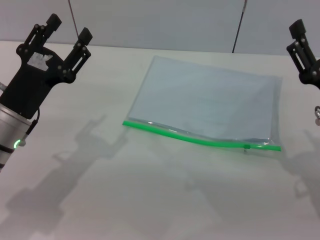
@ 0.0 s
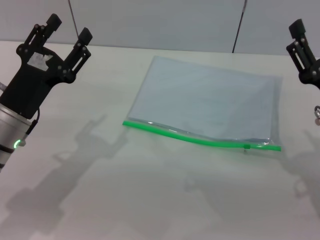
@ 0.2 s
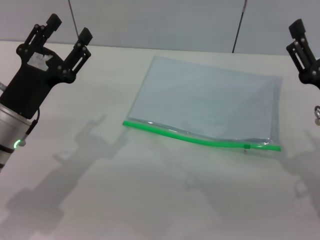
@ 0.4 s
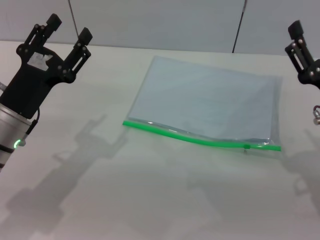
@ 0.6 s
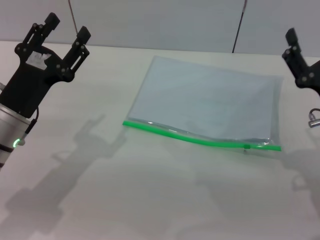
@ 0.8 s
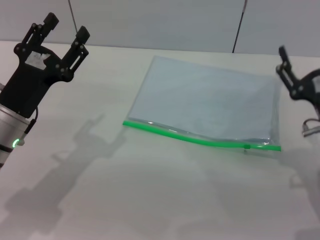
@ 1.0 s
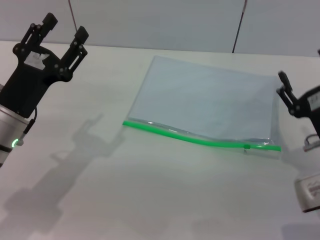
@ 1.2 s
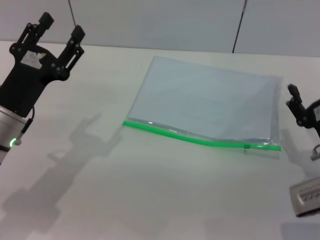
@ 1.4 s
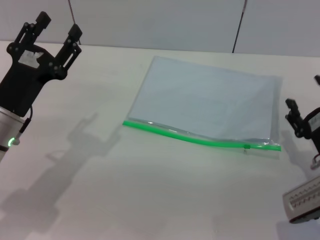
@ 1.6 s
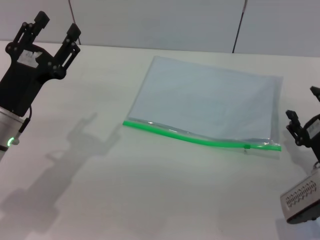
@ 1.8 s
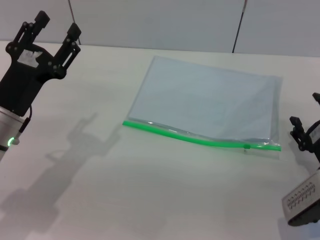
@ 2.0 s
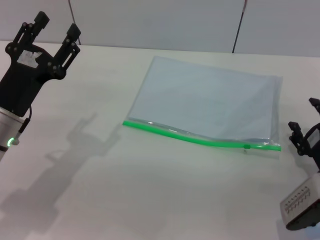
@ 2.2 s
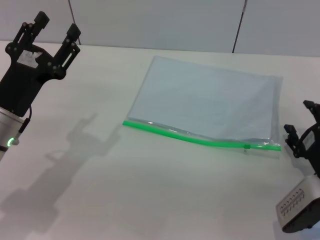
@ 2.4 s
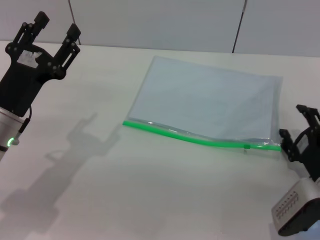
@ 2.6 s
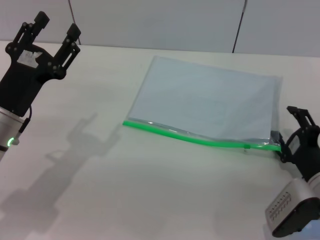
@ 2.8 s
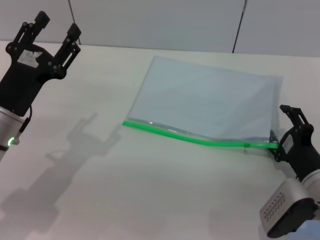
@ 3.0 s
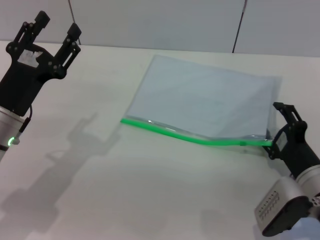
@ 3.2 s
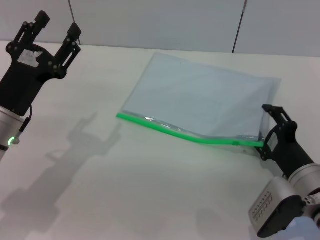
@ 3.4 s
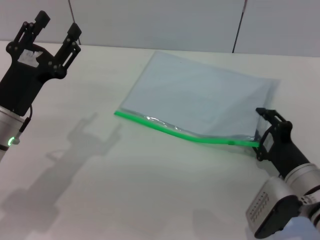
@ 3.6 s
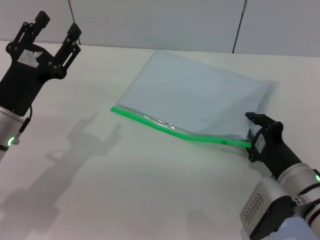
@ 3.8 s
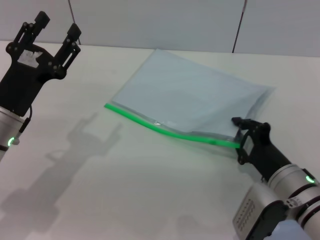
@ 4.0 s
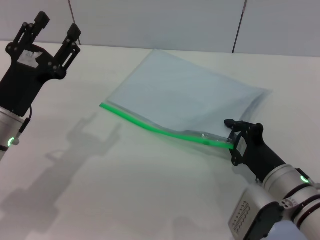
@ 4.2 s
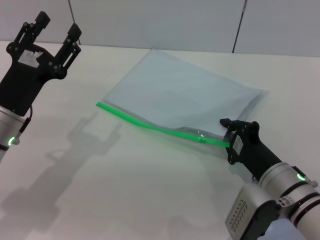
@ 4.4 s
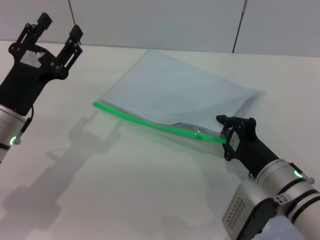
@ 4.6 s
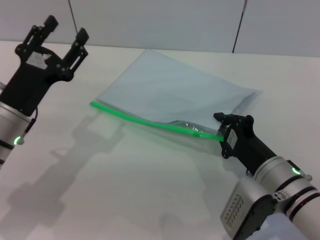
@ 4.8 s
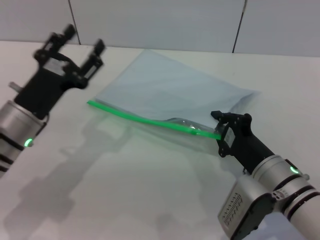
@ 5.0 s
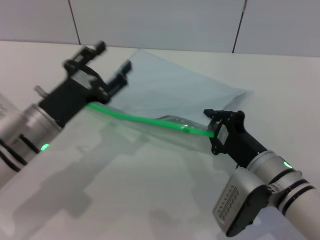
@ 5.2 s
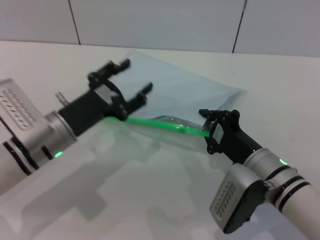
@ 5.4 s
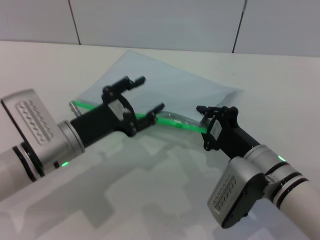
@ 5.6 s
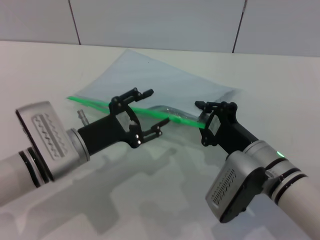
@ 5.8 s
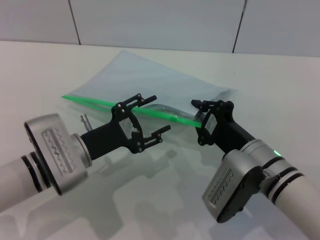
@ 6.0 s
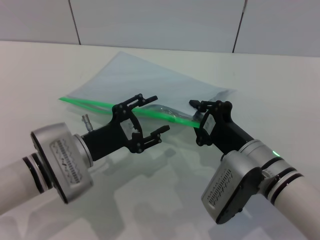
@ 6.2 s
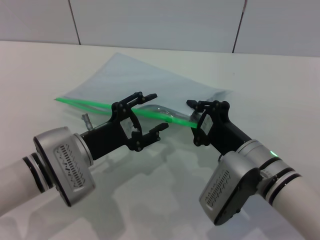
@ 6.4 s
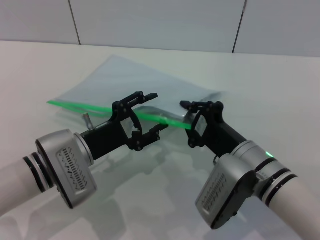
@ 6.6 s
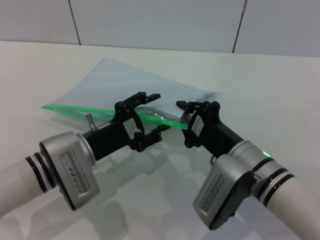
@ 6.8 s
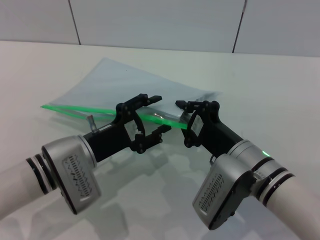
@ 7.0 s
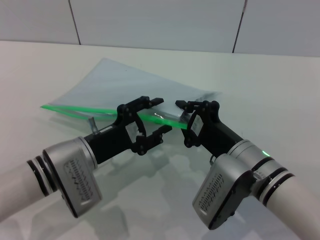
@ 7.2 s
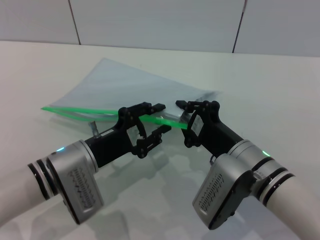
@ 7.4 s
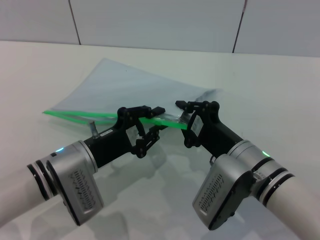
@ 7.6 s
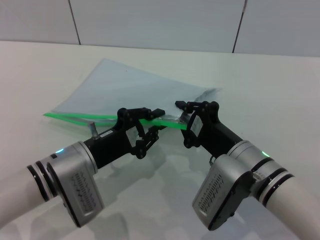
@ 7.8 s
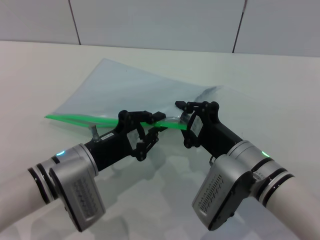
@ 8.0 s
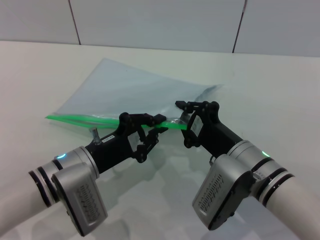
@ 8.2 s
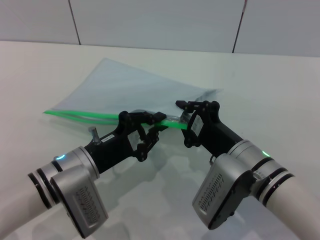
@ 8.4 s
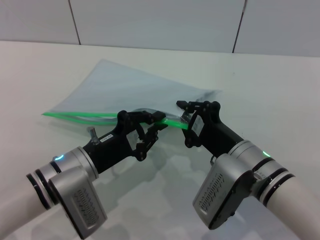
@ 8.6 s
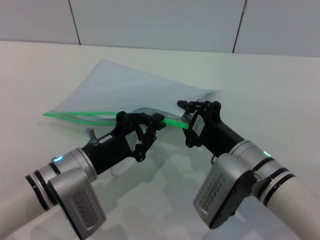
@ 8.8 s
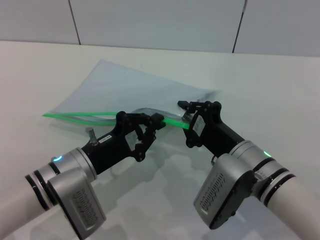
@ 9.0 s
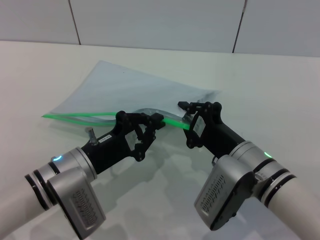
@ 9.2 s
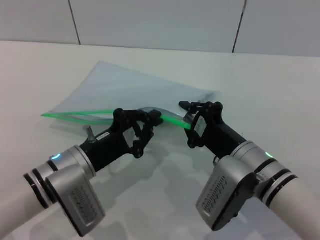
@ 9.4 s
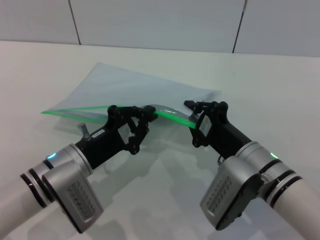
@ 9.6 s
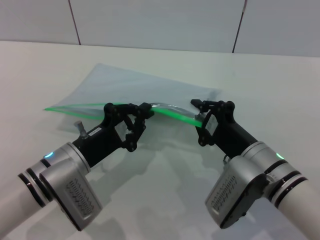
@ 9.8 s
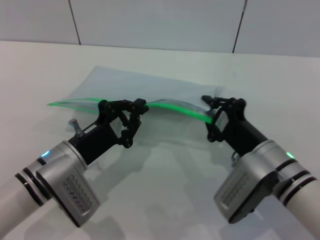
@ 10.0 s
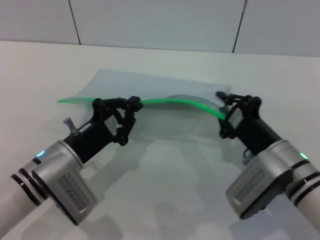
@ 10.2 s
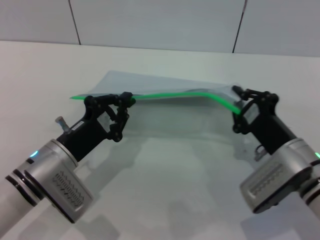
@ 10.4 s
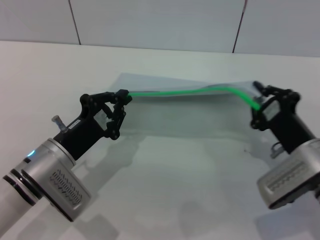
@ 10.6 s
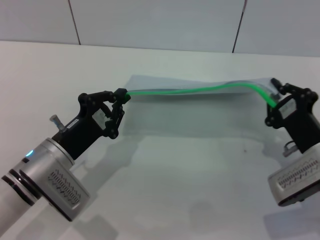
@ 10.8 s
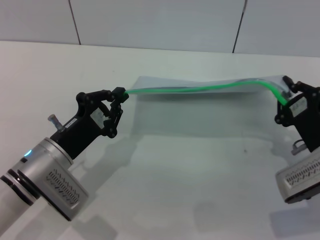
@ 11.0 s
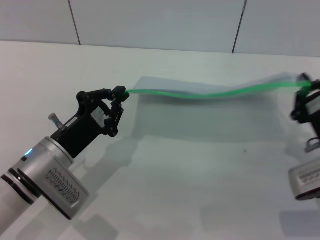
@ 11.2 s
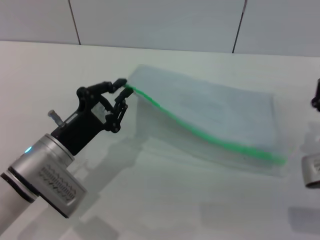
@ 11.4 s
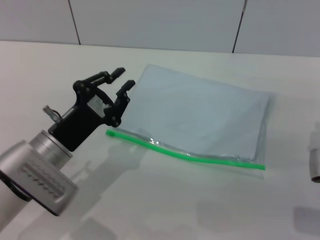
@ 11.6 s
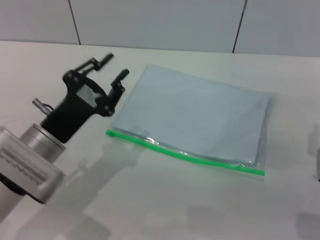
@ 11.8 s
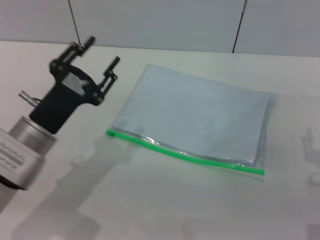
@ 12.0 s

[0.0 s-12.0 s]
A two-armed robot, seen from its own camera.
Step, 0.0 to 6.0 s: Pick up the transparent plastic bag with the right gripper.
Step, 6.2 to 11.2 s: Pulling up the zipper on the transparent plastic bag with the left gripper to close it.
0.0 to 1.6 s: The right gripper shifts approximately 5 cm downward.
1.6 to 3.0 s: The grippers move only a little.
3.0 to 4.4 s: The right gripper is displaced to the left by approximately 5 cm, and closes.
4.4 to 6.0 s: The right gripper shifts by some 5 cm. Meanwhile the left gripper goes approximately 5 cm to the right.
7.6 to 9.0 s: The left gripper closes.
9.0 to 10.4 s: The right gripper shifts some 5 cm to the right.
10.4 to 12.0 s: The left gripper opens its fingers. The right gripper is displaced to the right by about 5 cm, and opens.

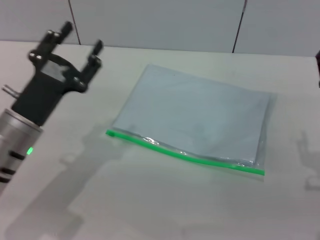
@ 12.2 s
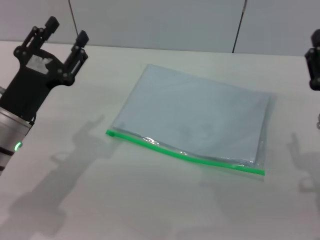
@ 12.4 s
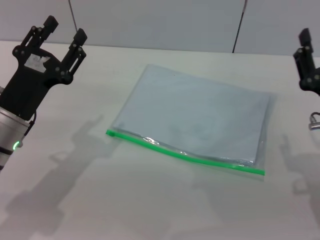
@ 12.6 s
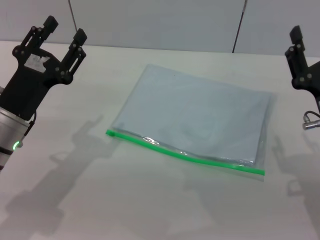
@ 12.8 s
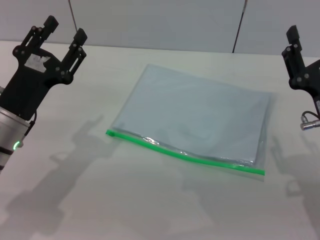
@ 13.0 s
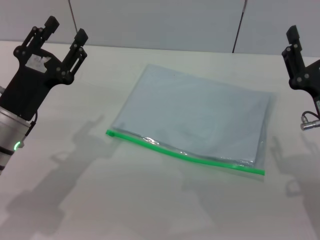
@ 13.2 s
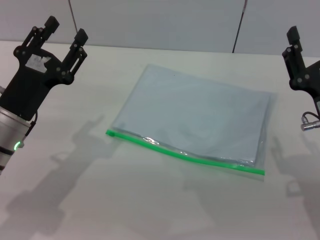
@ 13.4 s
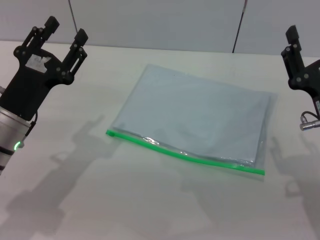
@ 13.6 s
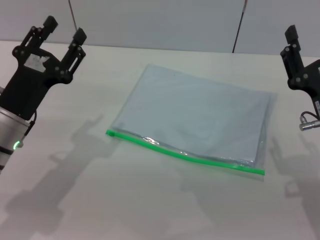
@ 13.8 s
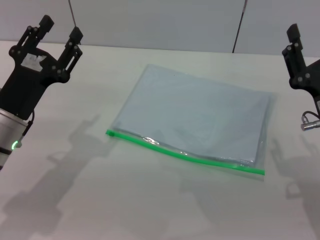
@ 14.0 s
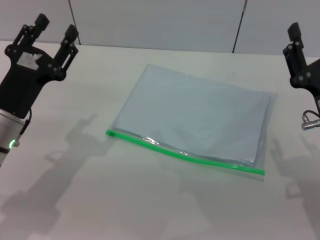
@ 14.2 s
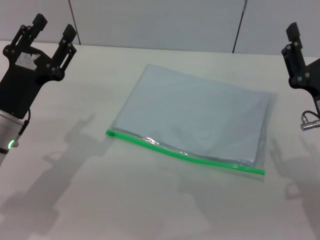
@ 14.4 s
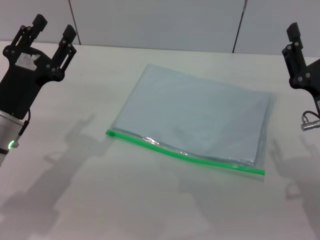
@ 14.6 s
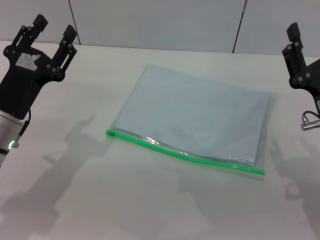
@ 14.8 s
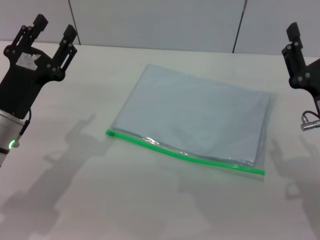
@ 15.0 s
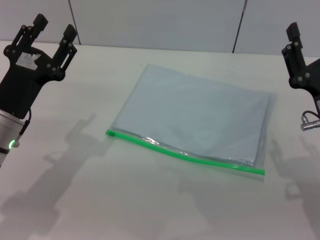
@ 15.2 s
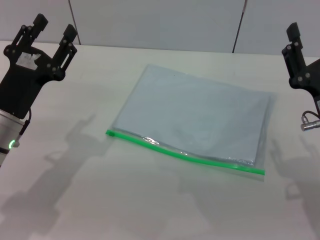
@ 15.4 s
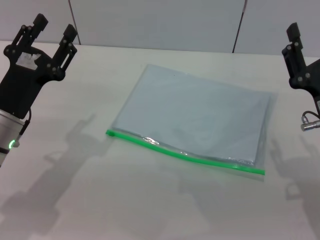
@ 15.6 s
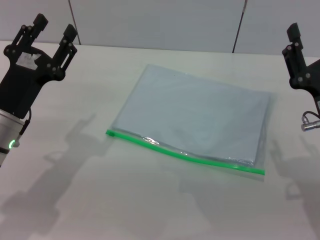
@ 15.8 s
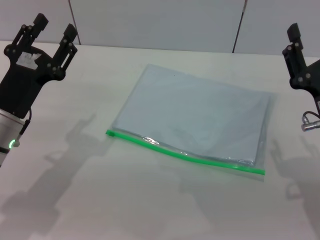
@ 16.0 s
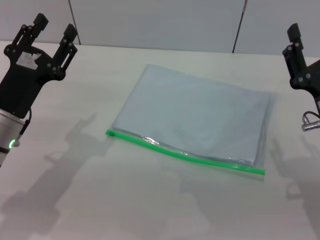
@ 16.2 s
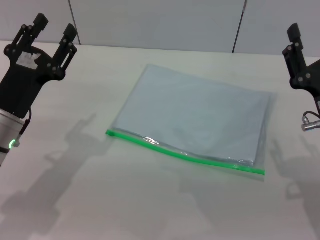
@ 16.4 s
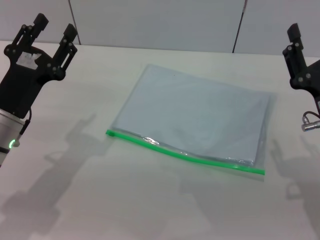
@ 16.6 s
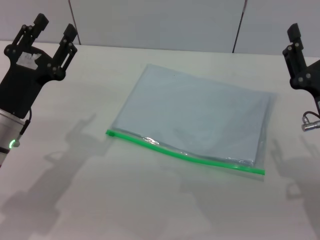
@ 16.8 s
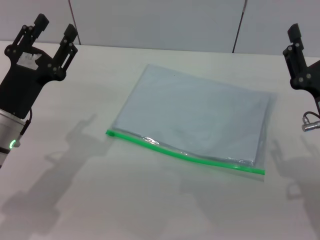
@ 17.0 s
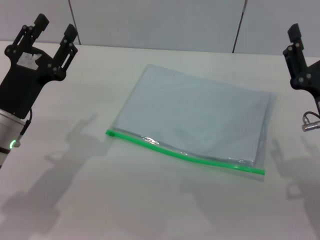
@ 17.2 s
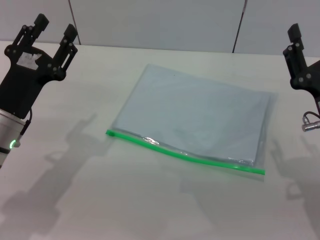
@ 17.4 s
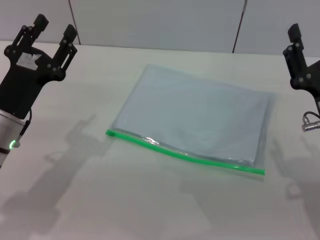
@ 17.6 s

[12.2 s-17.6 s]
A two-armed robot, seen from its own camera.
12.2 to 13.6 s: The grippers make only small movements.
13.6 to 17.6 s: Both grippers stay put.

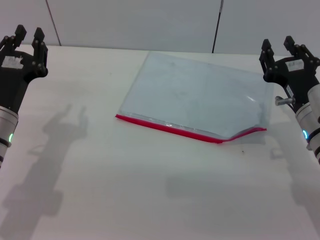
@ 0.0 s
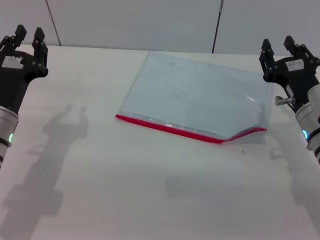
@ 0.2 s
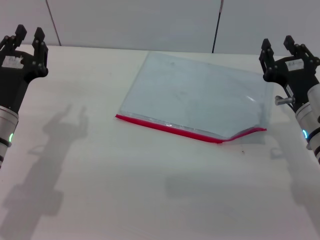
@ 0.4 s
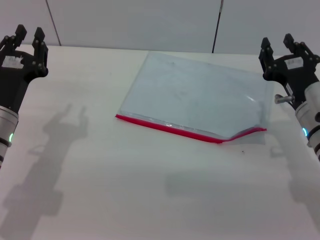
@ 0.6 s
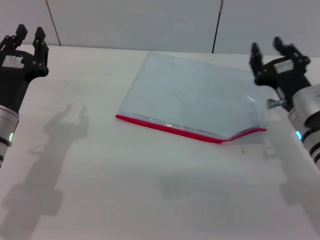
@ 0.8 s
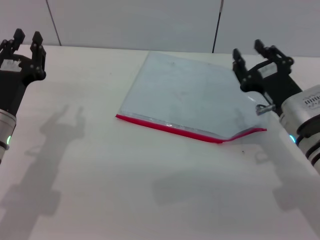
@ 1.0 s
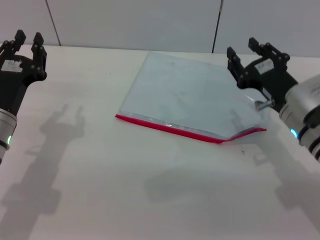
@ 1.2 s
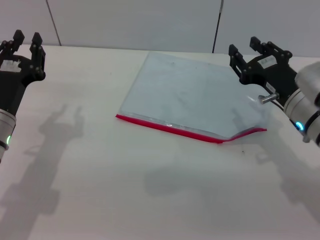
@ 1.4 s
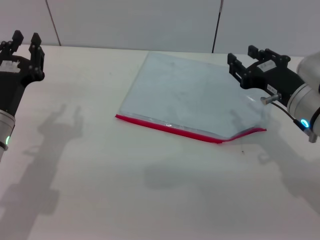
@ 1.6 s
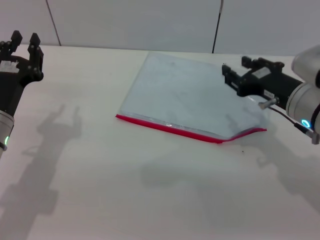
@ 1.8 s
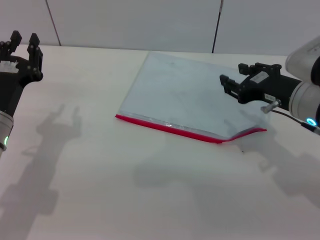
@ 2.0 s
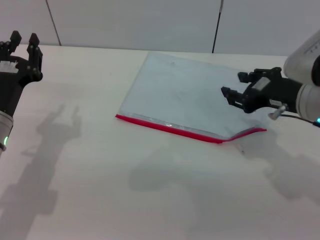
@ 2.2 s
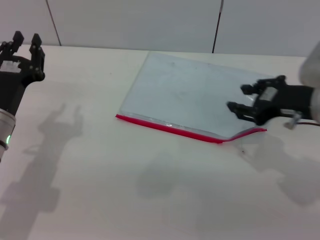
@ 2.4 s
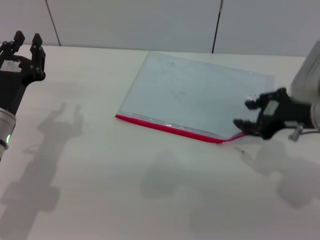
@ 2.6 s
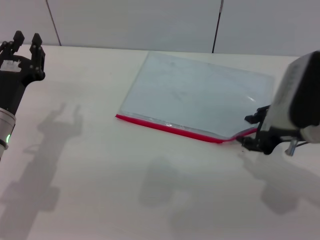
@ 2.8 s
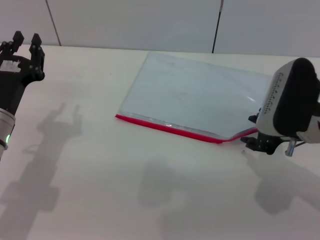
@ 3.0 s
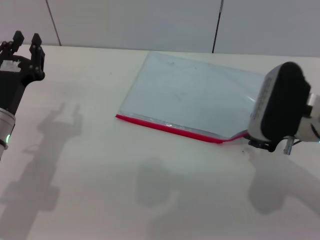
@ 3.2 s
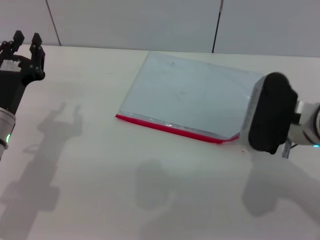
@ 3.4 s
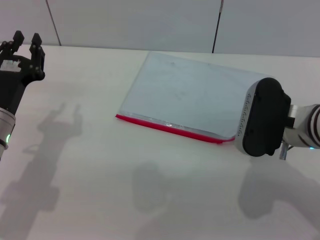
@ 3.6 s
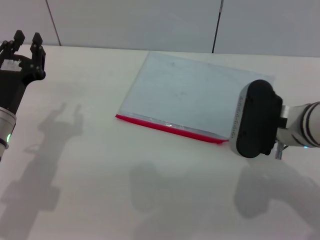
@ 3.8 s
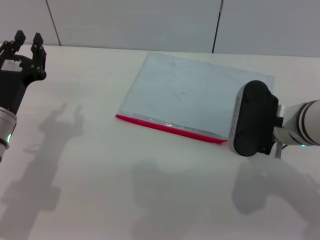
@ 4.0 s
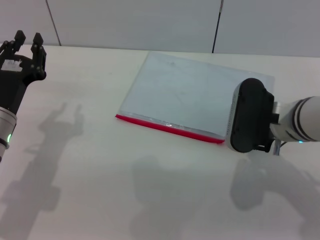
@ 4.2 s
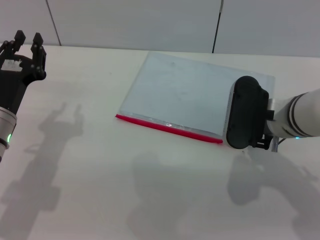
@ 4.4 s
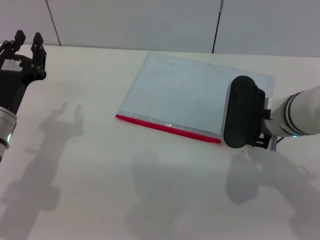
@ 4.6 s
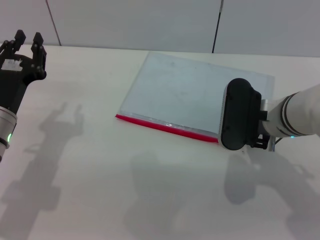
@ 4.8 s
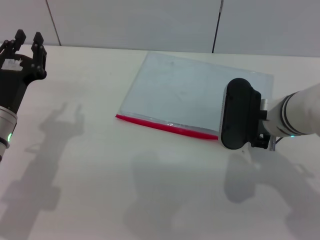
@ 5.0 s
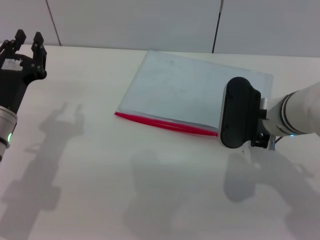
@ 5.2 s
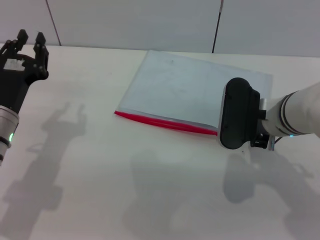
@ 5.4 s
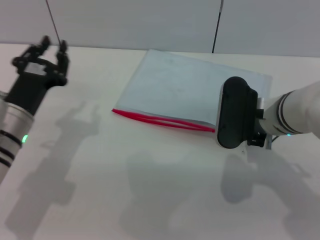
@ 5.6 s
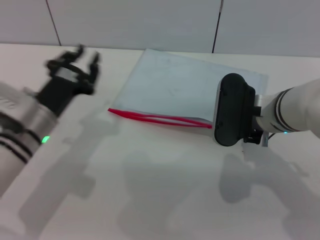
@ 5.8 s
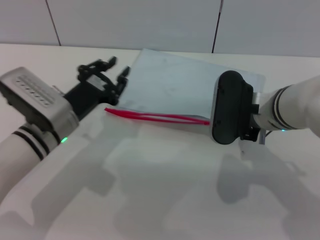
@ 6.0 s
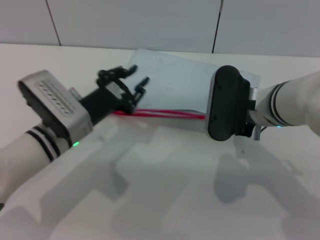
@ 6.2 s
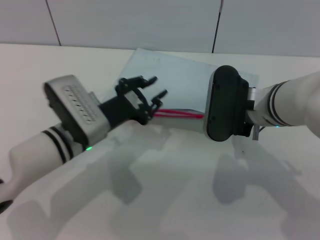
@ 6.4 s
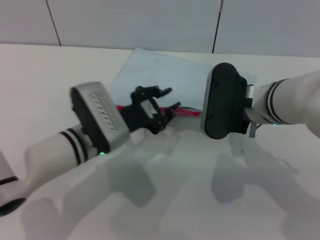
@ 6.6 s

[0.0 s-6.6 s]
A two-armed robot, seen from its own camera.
Step, 0.0 to 6.0 s: Pick up the transparent plastic bag with the right gripper.
3.2 to 5.0 s: The right gripper moves some 5 cm.
5.0 to 6.6 s: The left gripper heads to the right, covering roughly 10 cm, while the right gripper closes up.
